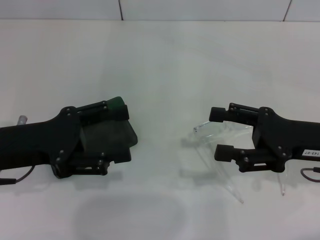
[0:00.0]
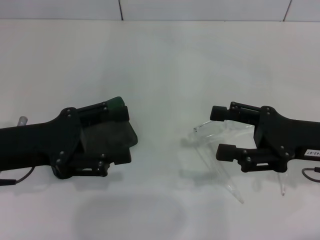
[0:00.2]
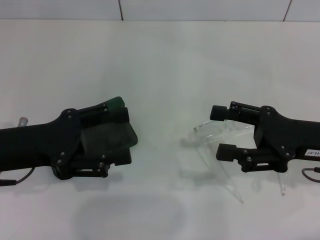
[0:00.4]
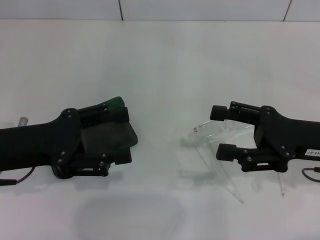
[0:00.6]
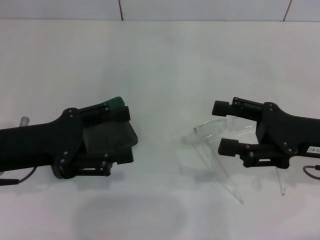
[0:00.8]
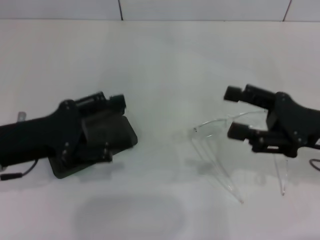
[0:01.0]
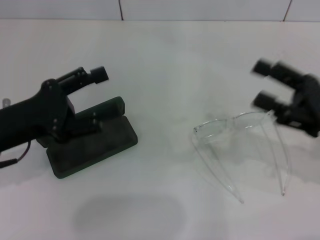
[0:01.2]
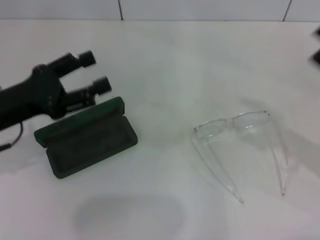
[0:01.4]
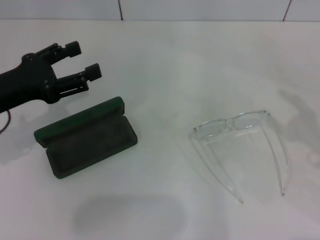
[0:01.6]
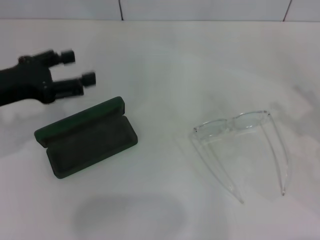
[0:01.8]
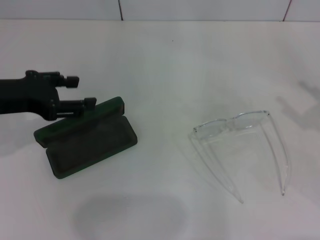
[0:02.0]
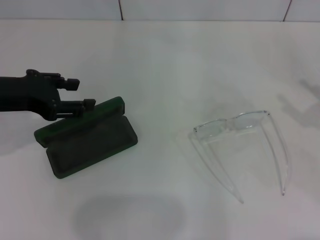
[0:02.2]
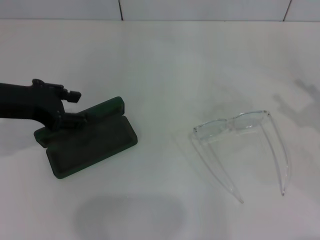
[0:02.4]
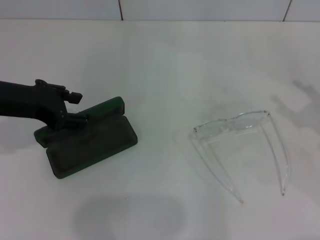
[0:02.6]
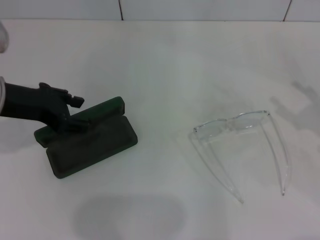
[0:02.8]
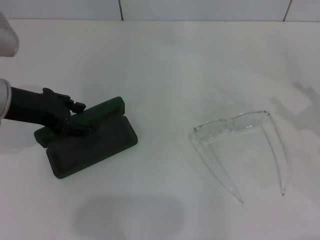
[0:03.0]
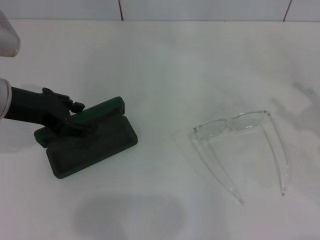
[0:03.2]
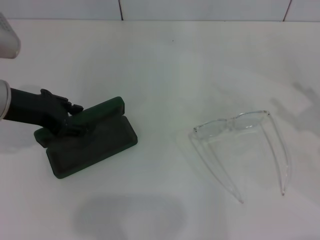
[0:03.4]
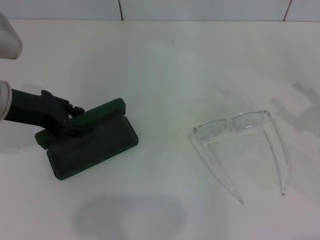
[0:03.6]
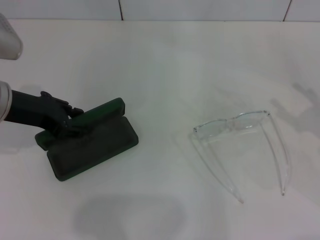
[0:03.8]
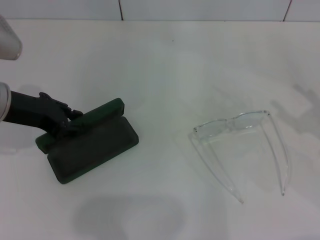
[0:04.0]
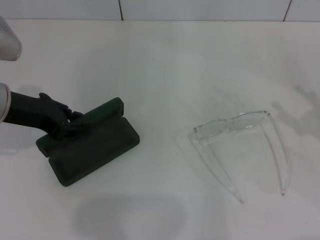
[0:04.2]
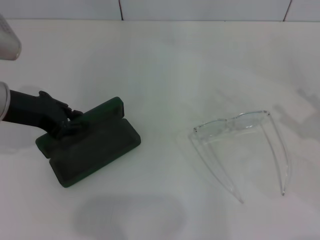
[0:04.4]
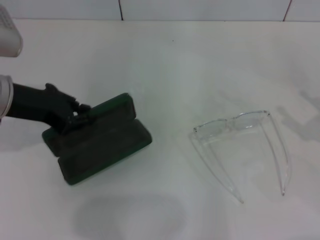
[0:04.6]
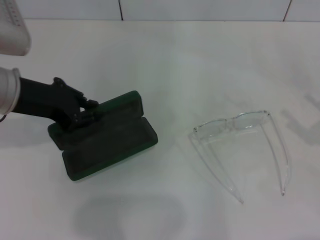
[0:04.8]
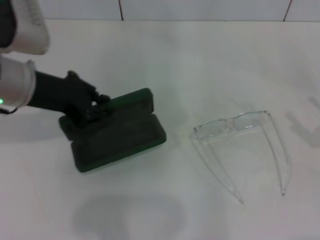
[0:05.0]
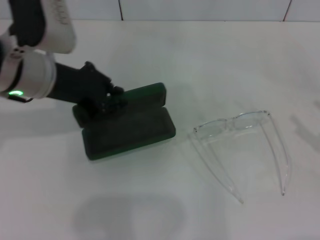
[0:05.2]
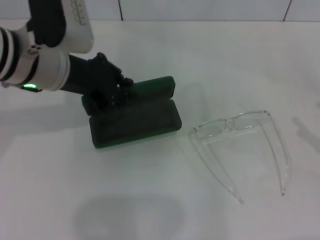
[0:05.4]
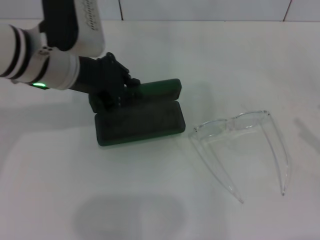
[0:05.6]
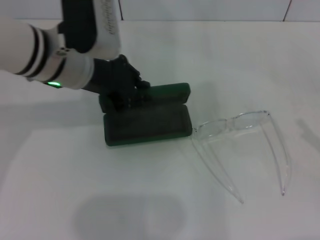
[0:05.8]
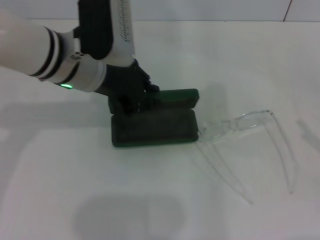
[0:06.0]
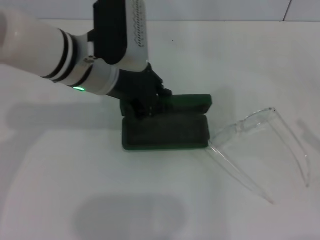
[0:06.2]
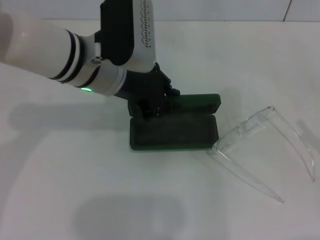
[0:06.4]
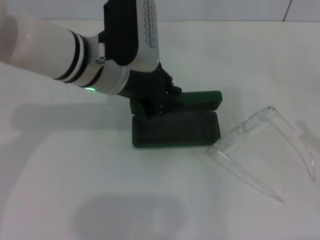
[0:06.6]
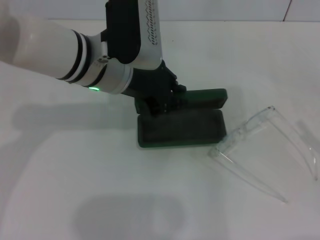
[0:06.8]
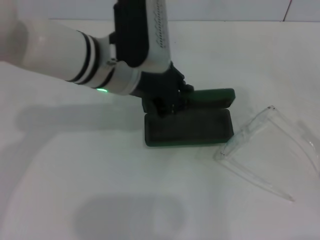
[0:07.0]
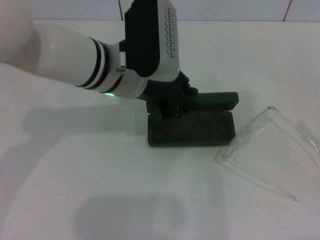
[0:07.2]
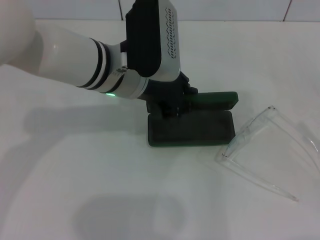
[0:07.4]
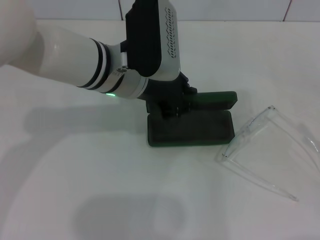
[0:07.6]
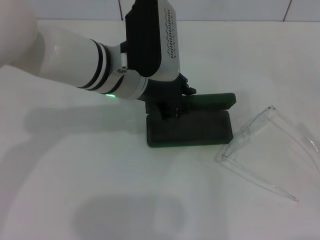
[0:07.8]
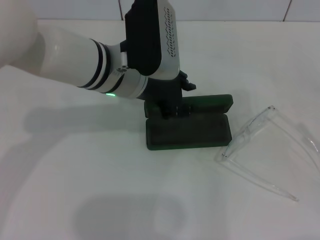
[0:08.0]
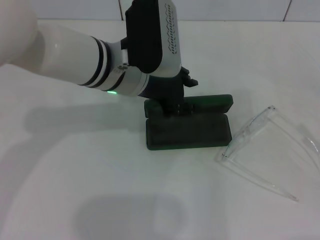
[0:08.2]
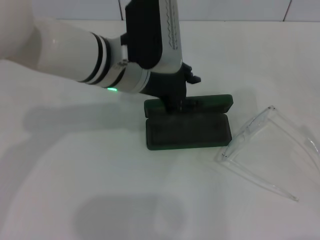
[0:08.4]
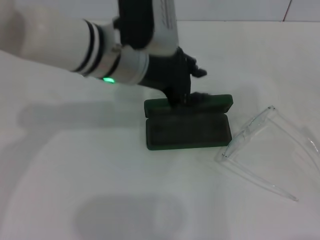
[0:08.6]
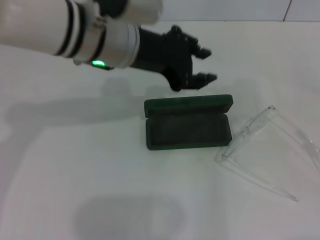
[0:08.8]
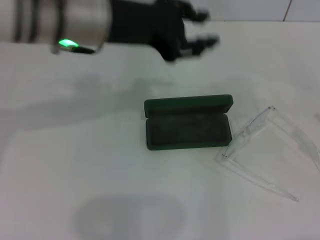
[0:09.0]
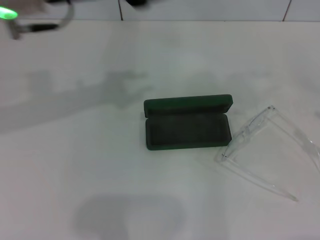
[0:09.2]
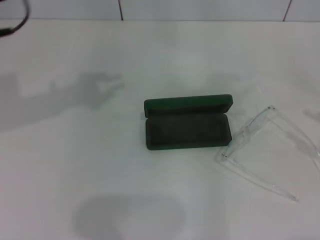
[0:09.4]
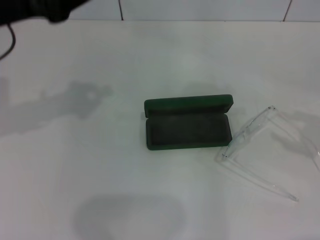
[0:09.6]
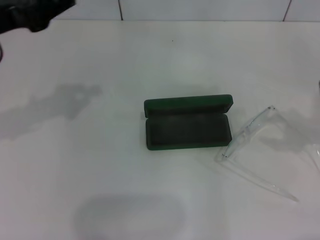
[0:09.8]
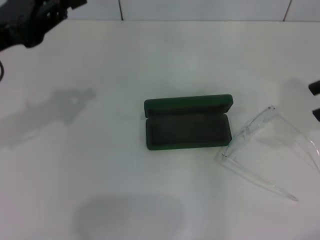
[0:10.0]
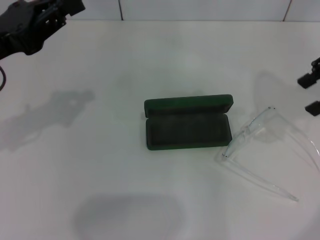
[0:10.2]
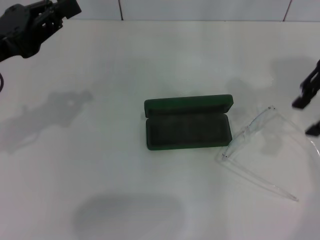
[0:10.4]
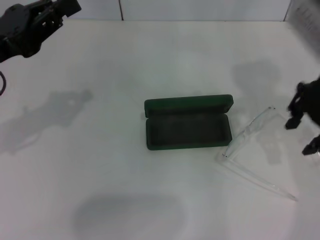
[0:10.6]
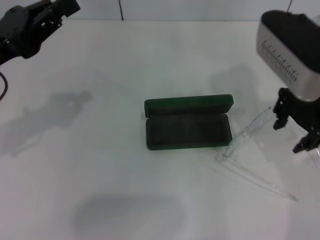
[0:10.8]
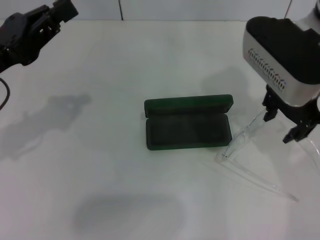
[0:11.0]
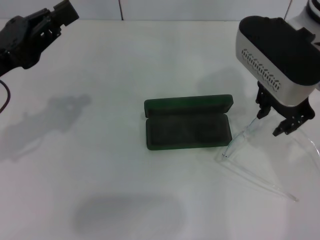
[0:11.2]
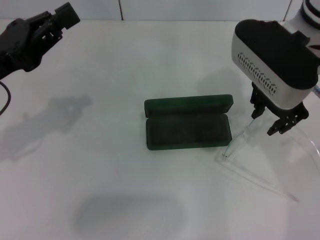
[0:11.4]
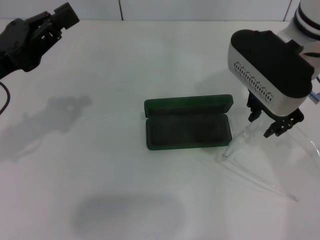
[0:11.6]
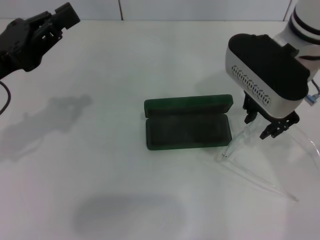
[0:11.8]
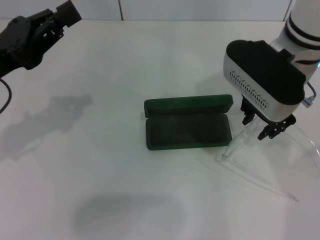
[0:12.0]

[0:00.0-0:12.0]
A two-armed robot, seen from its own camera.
Step, 0:00.0 to 0:04.0: Grab the glasses case with your left hand.
Step, 0:04.2 to 0:08.2: Place the glasses case in the center of the table with your left hand.
0:00.0 to 0:01.6: The right gripper heads to the right, covering some 10 cm.
0:01.6 to 0:03.0: The left gripper moves about 5 cm.
0:03.0 to 0:04.4: The grippers make only small movements.
0:04.4 to 0:06.0: The left gripper is displaced to the right by roughly 10 cm; the right gripper ends up some 5 cm from where it was.
0:06.0 to 0:07.6: The left gripper ends up about 5 cm from where it was.
0:07.6 to 0:09.0: The left gripper heads upward, covering roughly 10 cm.
0:09.0 to 0:10.4: The right gripper goes approximately 30 cm upward, forward and to the left, and closes, while the left gripper is displaced to the left and downward by about 15 cm, and closes up.
0:10.4 to 0:12.0: The right gripper goes approximately 15 cm to the left and downward.

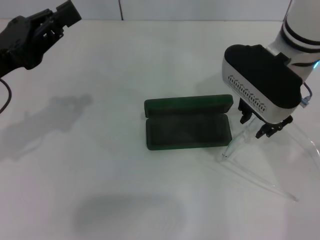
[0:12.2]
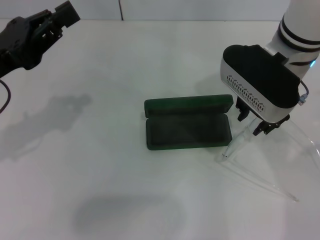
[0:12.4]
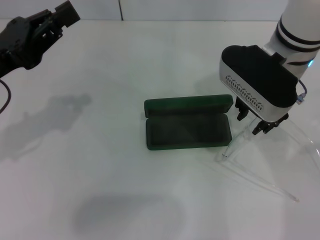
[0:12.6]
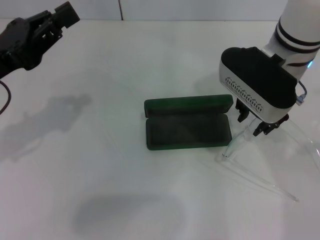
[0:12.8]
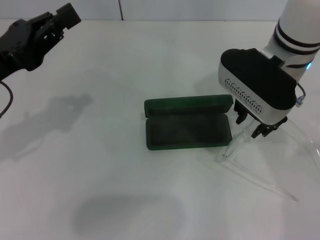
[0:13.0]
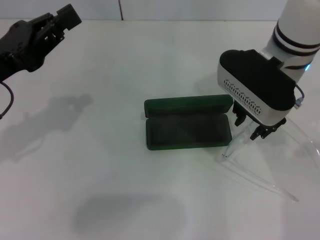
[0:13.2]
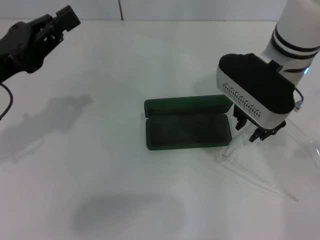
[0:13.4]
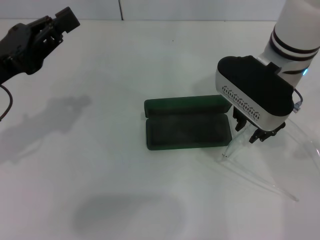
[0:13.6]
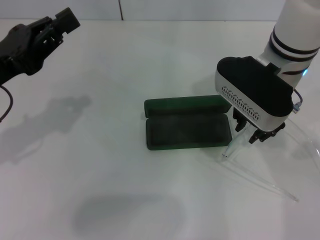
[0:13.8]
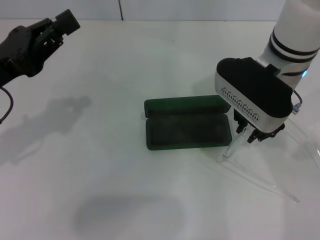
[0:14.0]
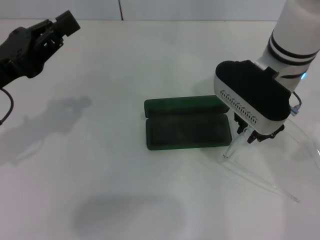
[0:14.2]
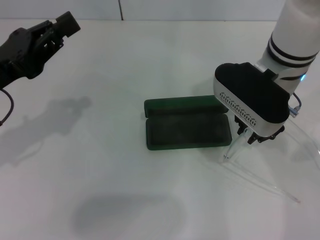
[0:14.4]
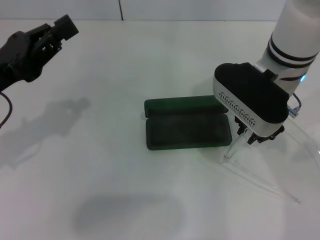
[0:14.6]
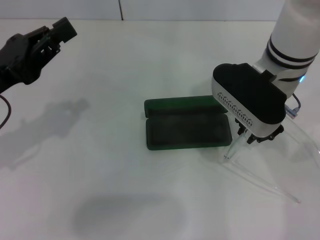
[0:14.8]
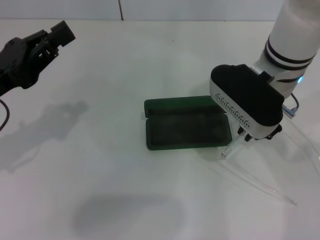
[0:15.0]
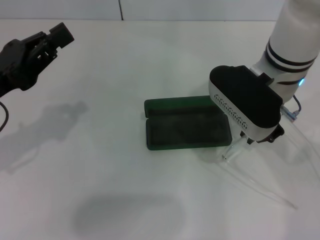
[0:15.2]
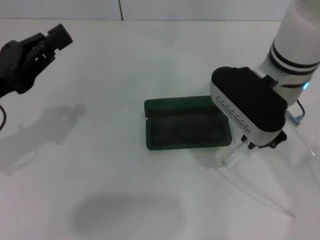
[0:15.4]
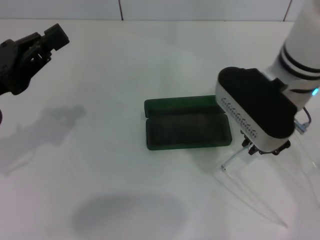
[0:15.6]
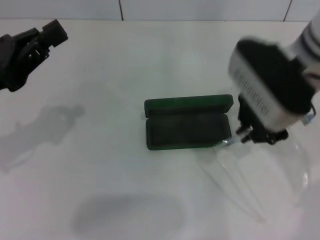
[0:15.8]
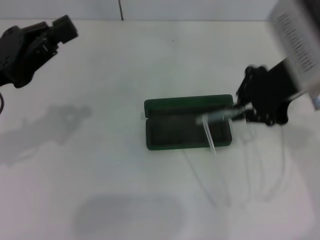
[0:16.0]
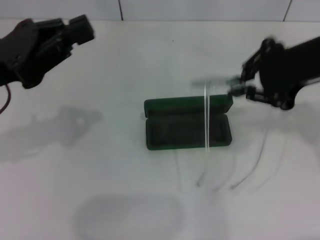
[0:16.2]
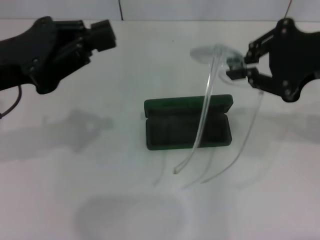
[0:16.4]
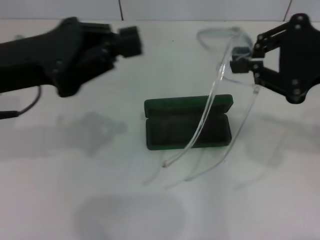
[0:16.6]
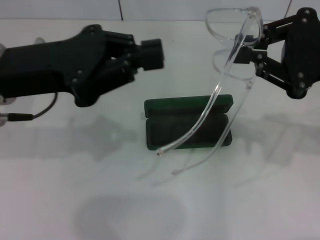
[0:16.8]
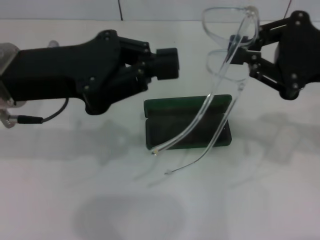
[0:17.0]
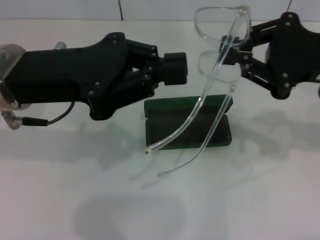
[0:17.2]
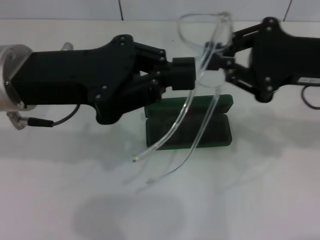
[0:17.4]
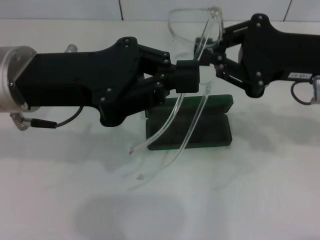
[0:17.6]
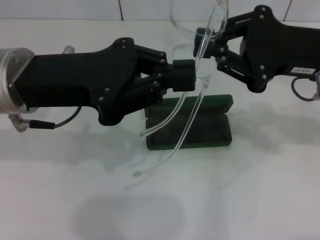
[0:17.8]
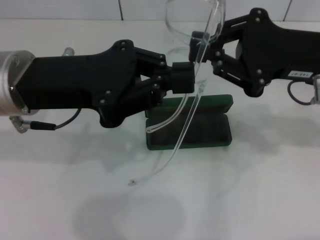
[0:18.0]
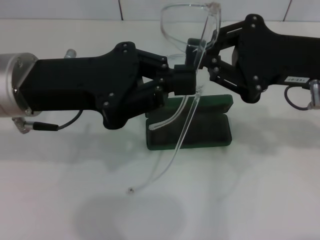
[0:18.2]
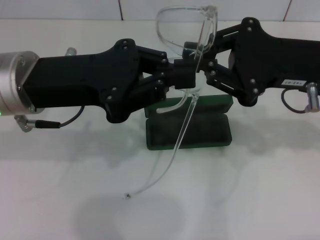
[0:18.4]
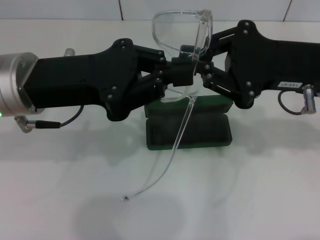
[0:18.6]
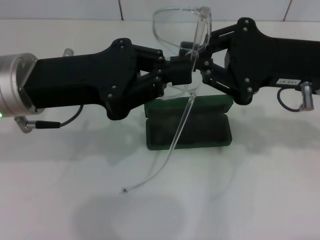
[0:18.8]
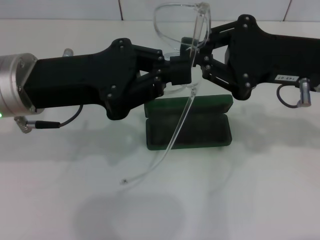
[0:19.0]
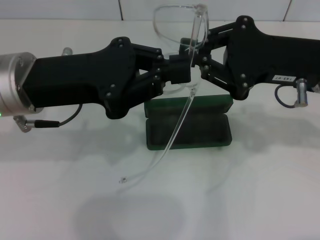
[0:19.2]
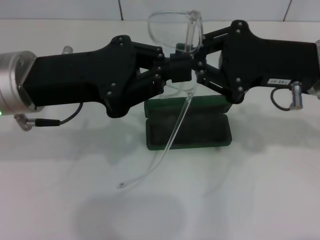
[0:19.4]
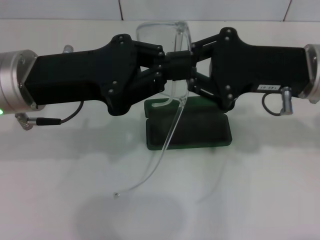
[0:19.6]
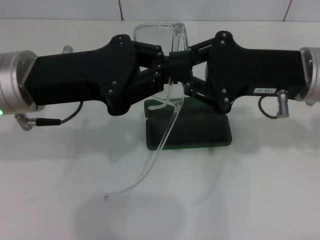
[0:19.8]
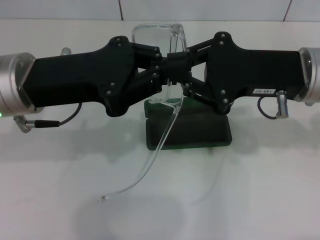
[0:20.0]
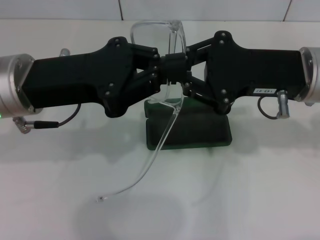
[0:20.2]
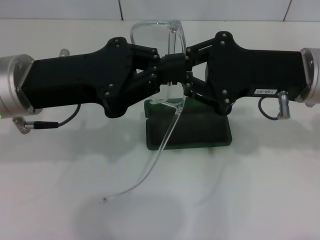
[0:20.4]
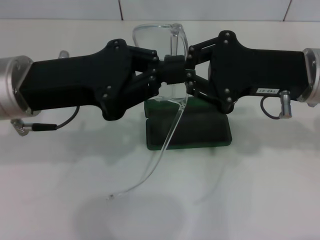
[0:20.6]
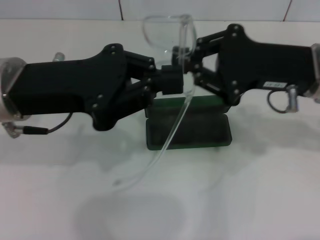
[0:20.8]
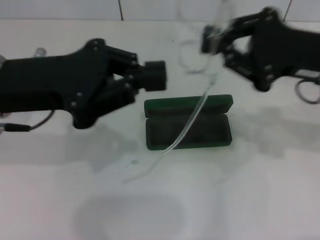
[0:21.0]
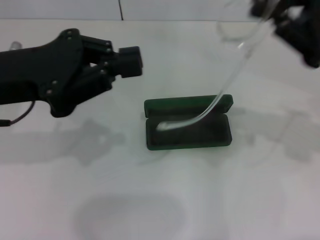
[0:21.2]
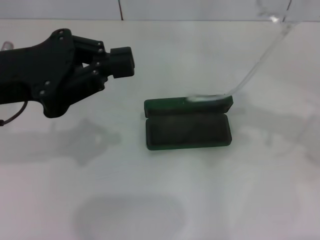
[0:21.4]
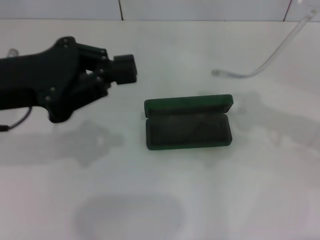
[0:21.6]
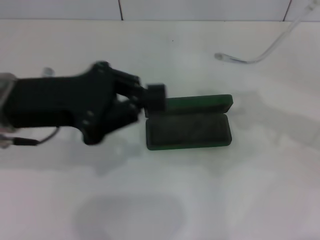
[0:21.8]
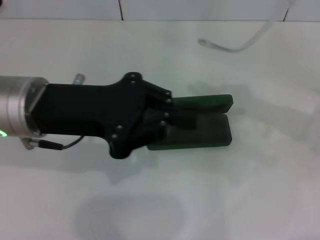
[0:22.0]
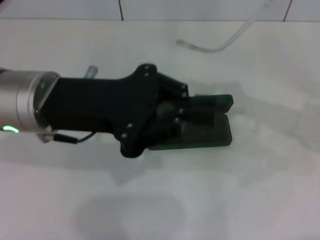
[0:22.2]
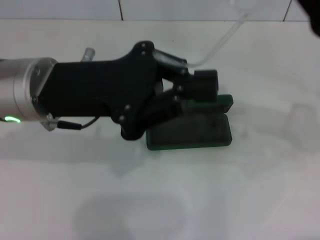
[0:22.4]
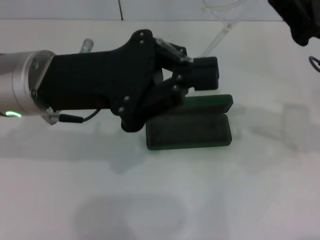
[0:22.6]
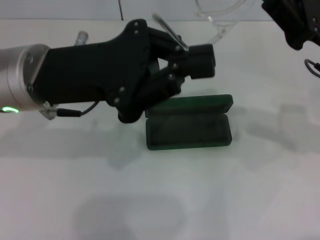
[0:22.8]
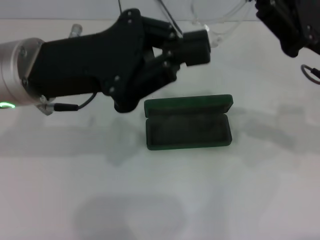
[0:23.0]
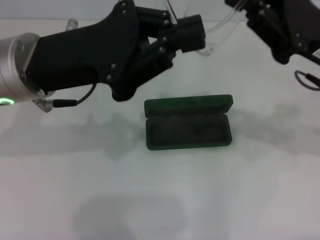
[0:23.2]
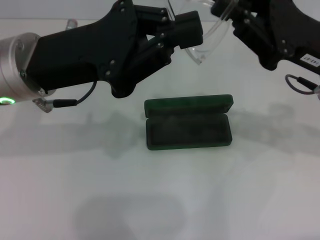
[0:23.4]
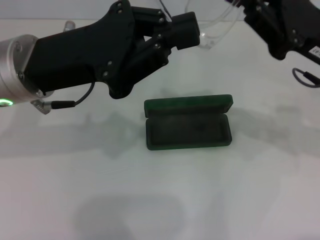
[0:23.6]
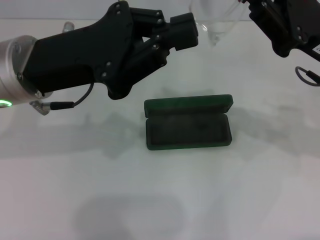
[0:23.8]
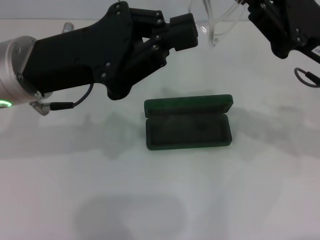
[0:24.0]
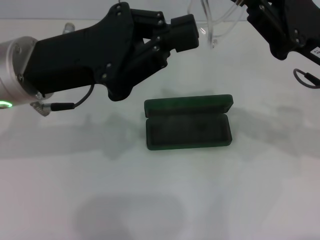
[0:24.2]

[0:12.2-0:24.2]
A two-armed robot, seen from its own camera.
Step, 0:12.2 to 0:14.8: Grab the eyeglass frame with your right hand.
0:12.2 to 0:15.2: The grippers make only small movements.
0:15.2 to 0:16.6: The left gripper goes some 10 cm upward and to the right. The right gripper moves to the right, backward and upward, about 15 cm.
0:16.6 to 0:18.2: The right gripper ends up about 5 cm from where it was.
0:18.2 to 0:19.8: The grippers make only small movements.
0:19.8 to 0:21.2: The right gripper travels to the right by approximately 10 cm.
0:21.2 to 0:22.6: The left gripper is displaced to the right by about 5 cm.
